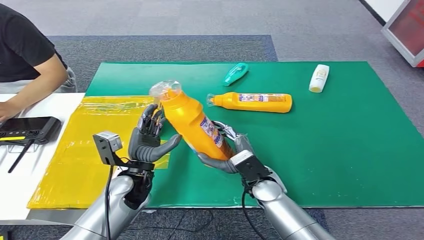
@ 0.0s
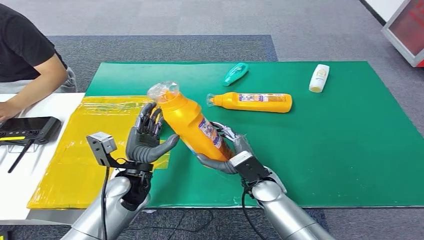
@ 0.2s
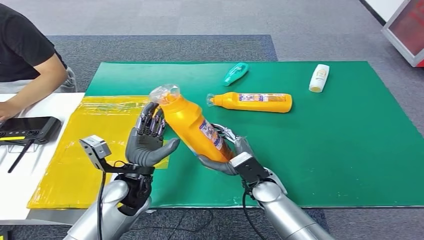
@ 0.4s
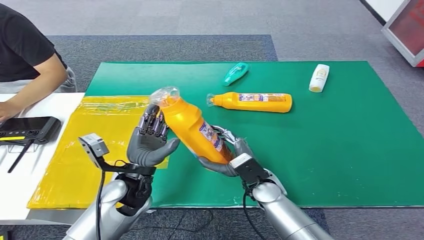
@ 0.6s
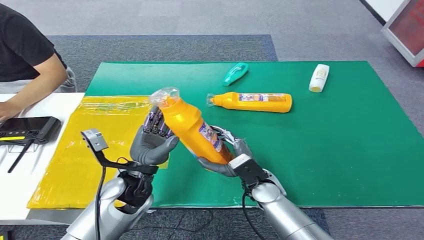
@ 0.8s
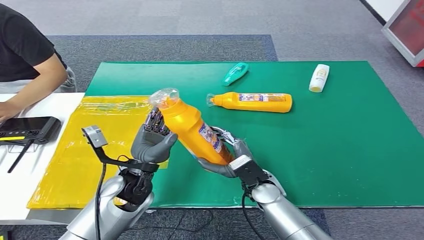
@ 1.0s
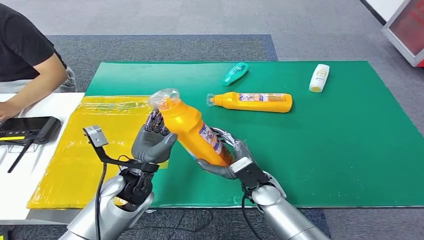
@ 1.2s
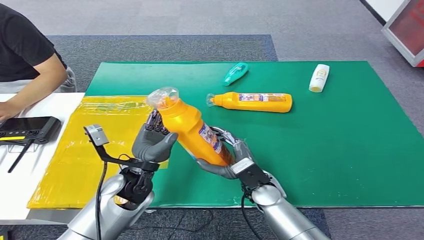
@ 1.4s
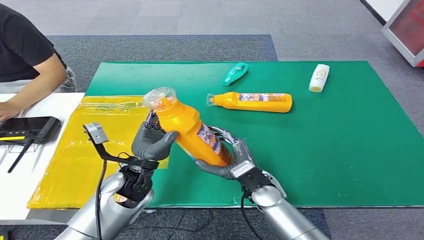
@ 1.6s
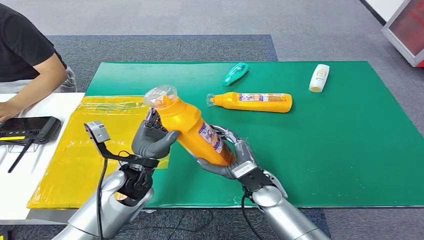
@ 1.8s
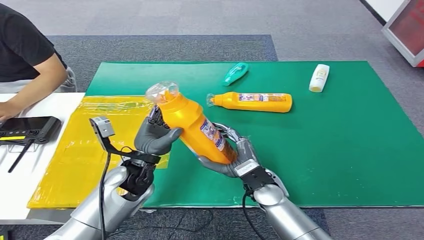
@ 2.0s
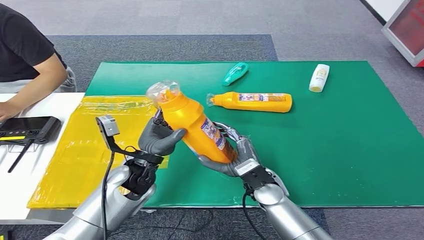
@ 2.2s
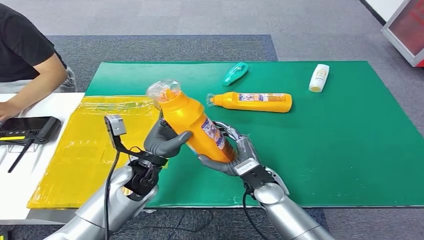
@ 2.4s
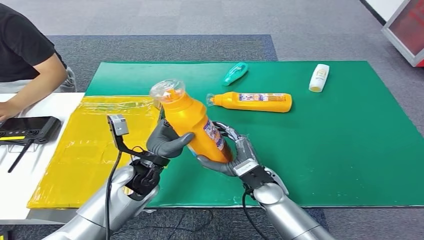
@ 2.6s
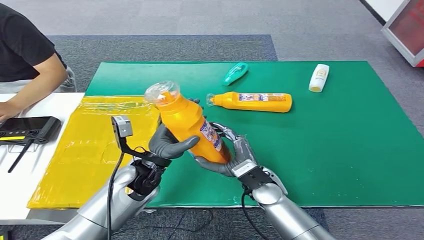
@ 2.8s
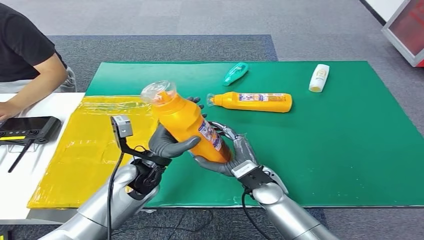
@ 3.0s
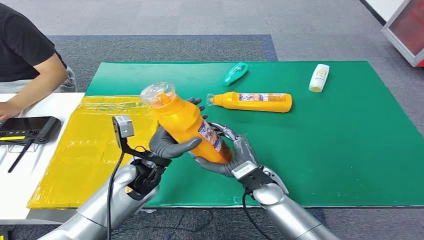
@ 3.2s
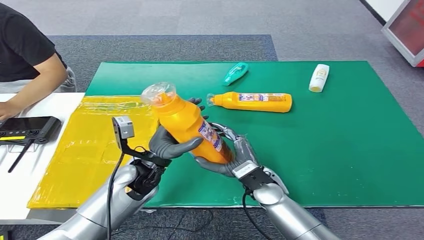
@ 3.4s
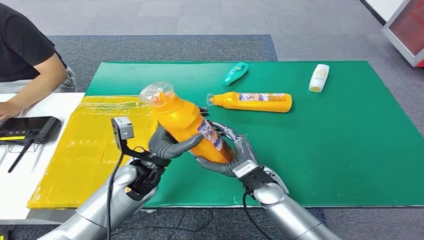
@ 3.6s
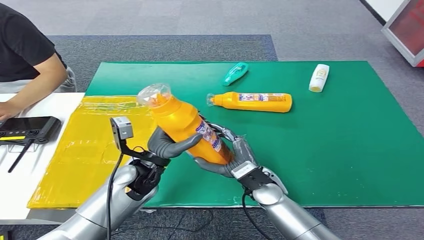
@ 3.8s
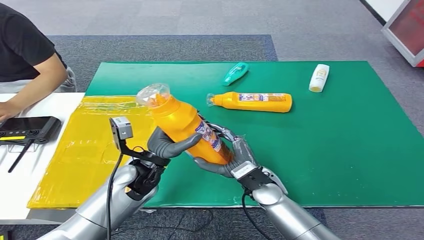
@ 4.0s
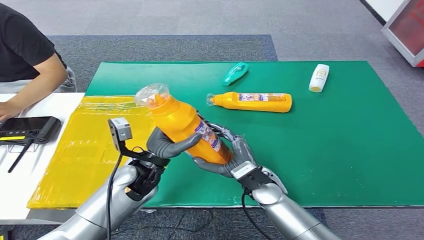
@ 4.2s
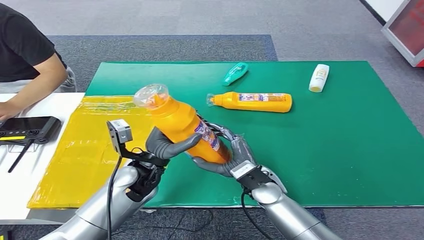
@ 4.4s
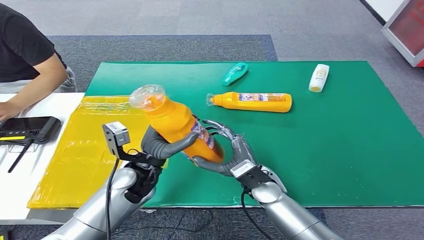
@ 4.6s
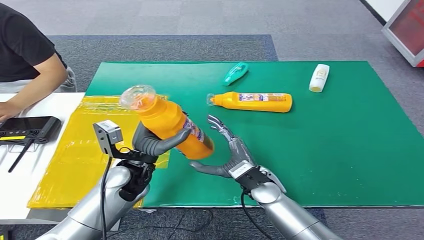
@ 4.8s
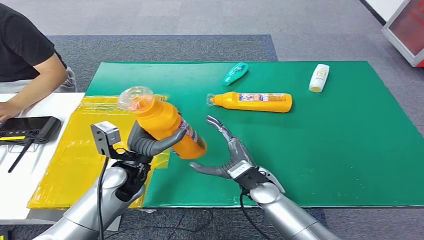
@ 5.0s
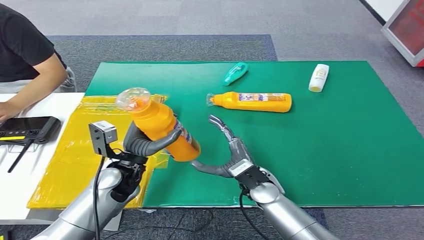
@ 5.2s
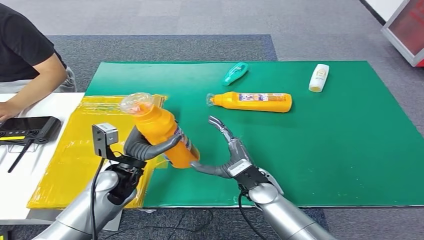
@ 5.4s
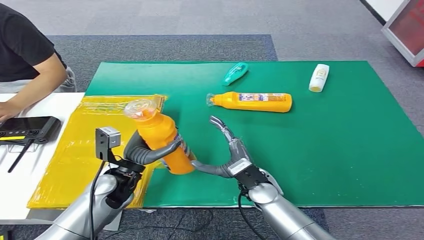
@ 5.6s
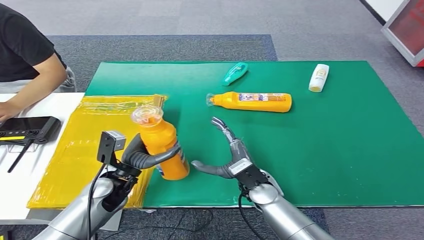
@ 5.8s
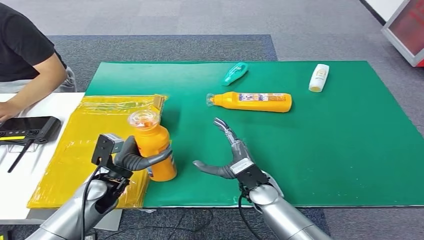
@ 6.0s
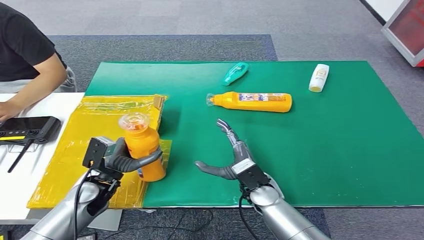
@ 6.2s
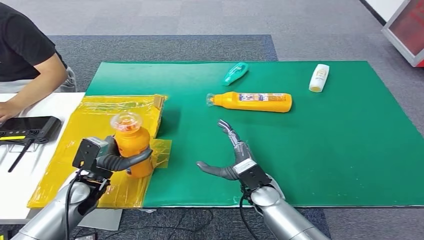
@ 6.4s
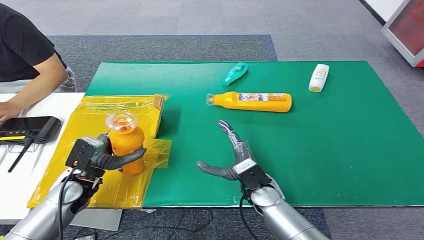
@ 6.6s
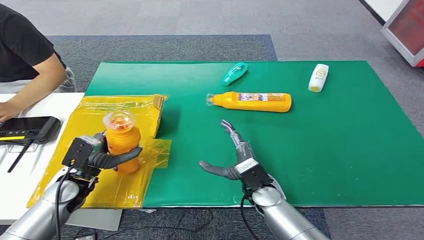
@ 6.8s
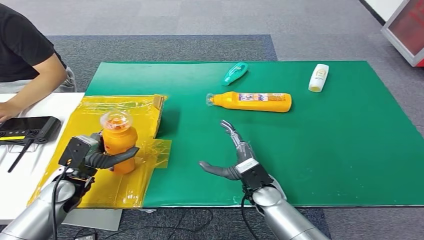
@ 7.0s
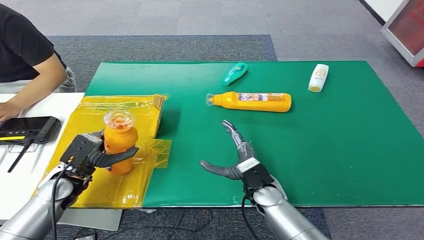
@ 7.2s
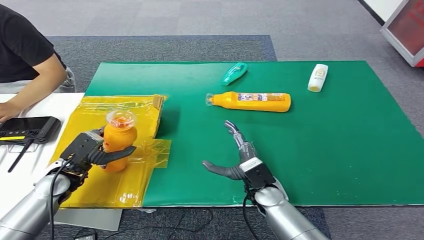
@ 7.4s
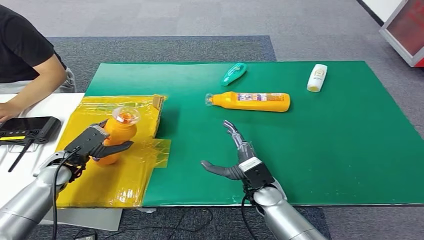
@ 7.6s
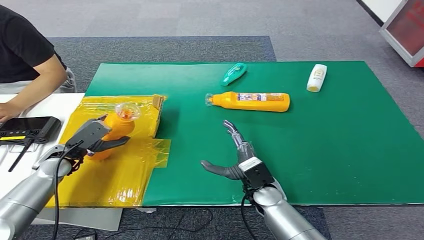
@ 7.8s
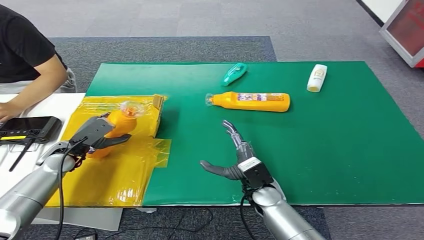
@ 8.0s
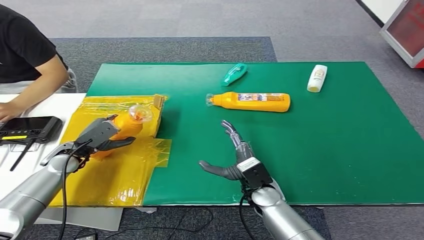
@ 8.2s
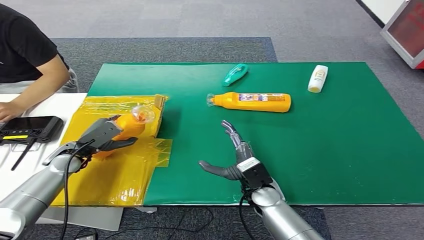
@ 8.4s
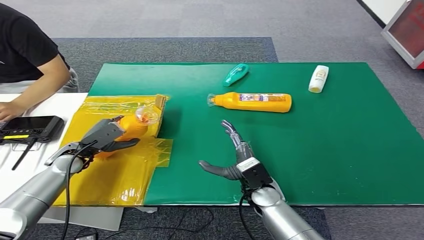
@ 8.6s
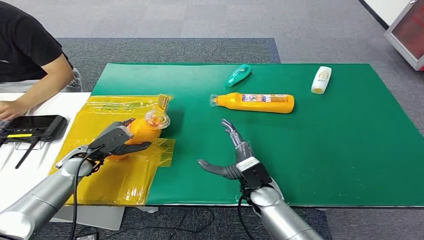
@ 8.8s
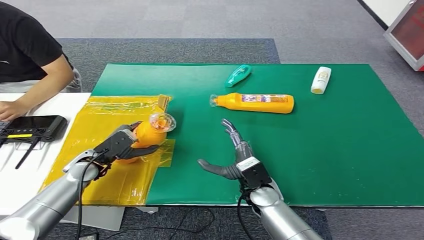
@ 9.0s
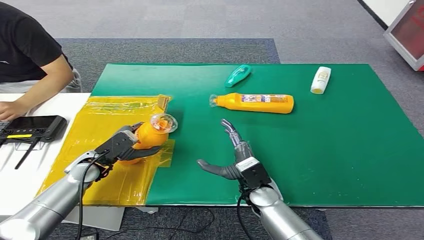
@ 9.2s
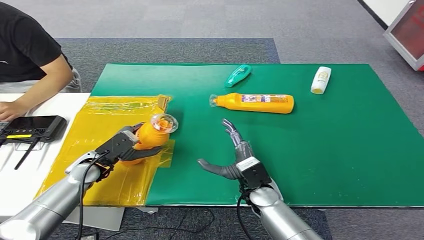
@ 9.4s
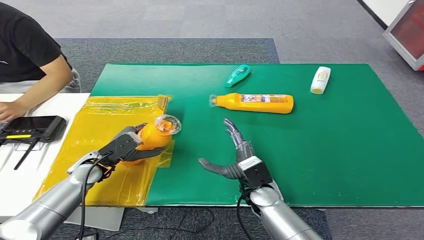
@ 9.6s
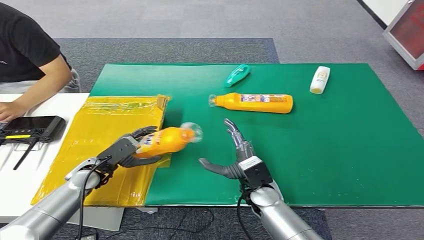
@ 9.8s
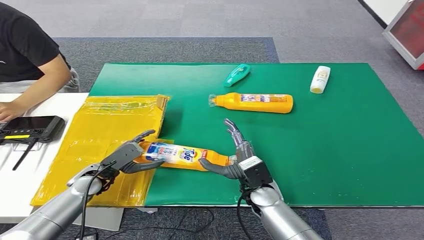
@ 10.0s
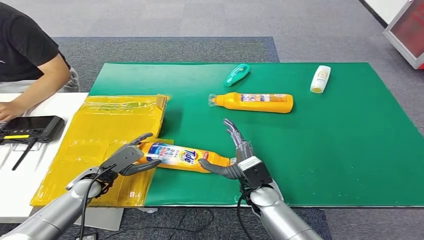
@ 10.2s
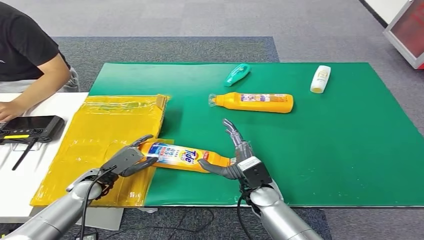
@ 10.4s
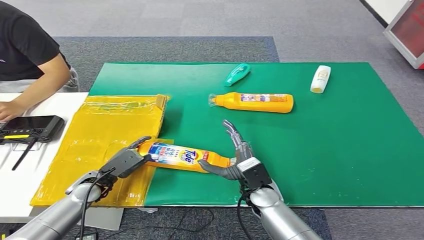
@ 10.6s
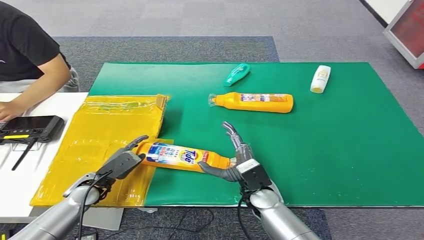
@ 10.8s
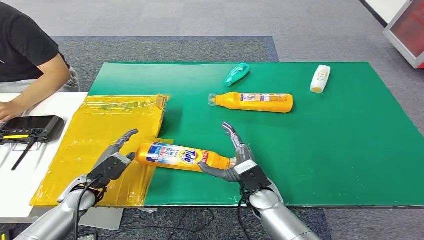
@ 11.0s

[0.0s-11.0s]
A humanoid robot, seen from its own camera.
Step, 1.2s to 11.0s: Turn the bottle to the front side.
1.6s to 4.8s: There are only small adjustments of the hands.
4.8s to 6.2s: The left hand travels to the left and downward by about 10 cm.
6.2s to 7.8s: The left hand moves to the left and forward, approximately 15 cm.
9.4s to 11.0s: The left hand heads backward, covering roughly 5 cm.
